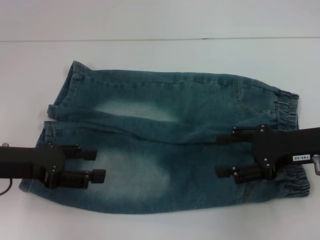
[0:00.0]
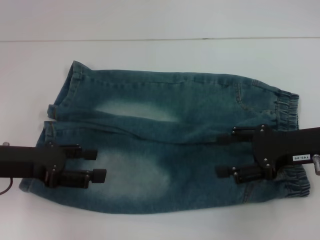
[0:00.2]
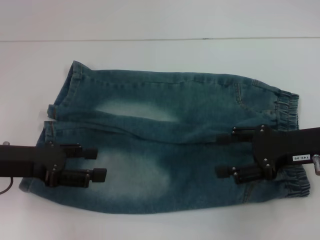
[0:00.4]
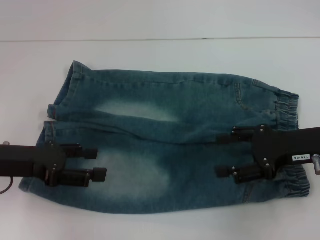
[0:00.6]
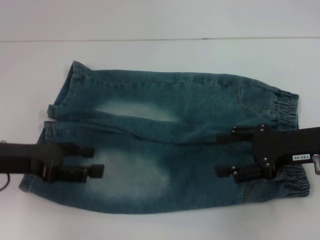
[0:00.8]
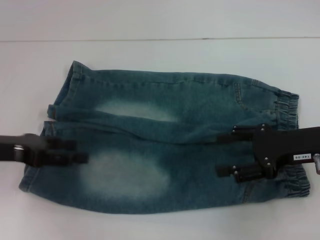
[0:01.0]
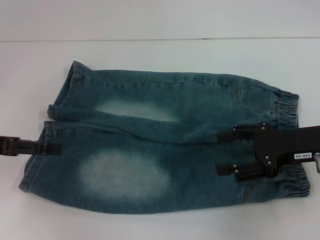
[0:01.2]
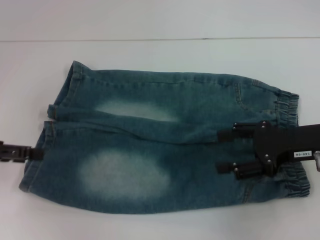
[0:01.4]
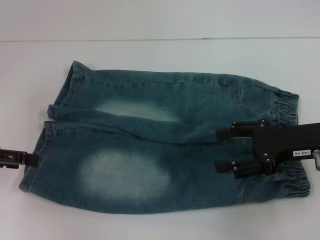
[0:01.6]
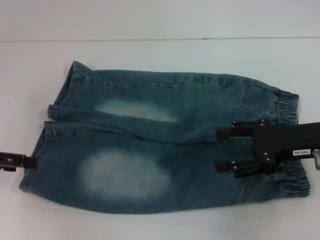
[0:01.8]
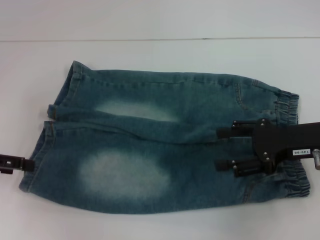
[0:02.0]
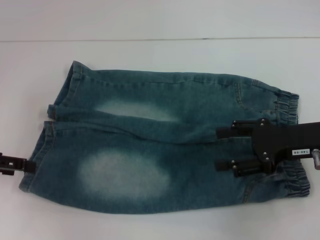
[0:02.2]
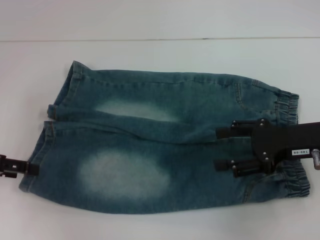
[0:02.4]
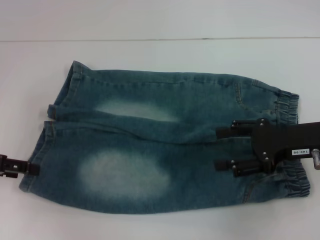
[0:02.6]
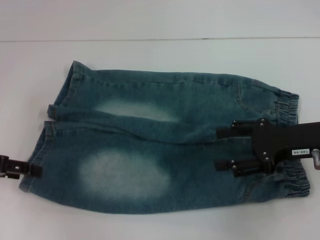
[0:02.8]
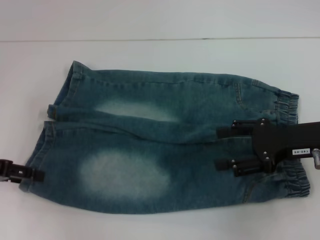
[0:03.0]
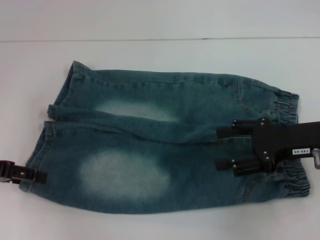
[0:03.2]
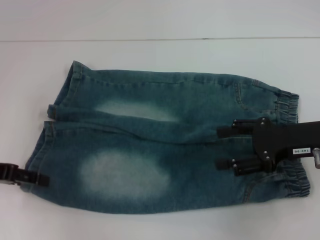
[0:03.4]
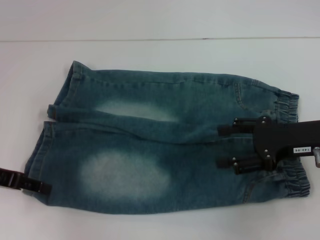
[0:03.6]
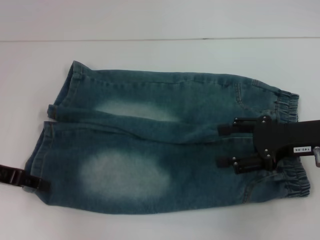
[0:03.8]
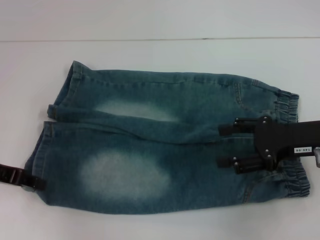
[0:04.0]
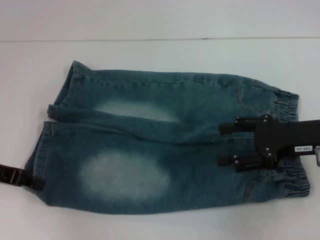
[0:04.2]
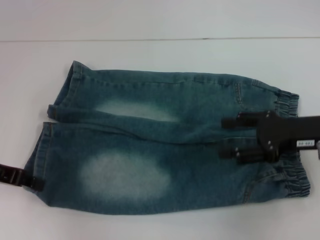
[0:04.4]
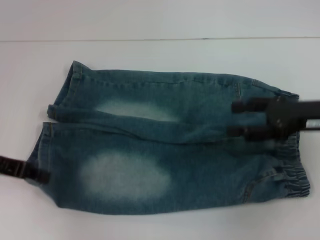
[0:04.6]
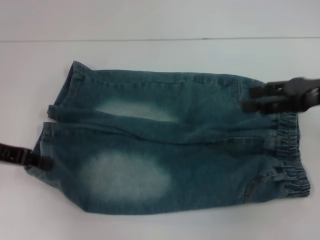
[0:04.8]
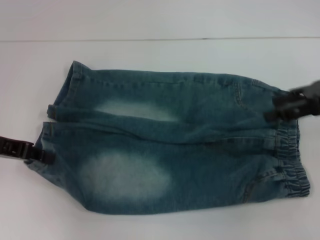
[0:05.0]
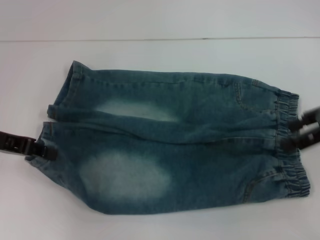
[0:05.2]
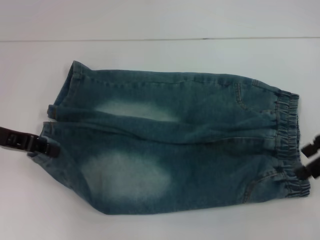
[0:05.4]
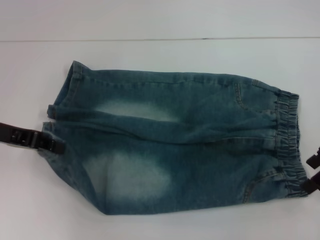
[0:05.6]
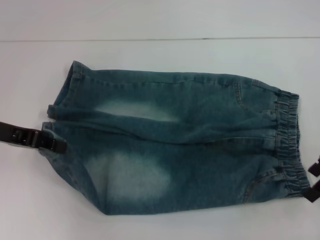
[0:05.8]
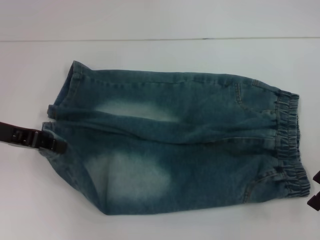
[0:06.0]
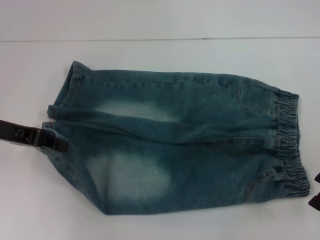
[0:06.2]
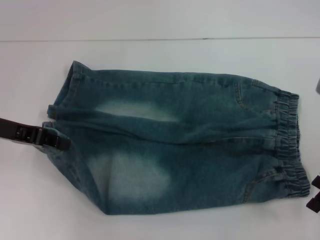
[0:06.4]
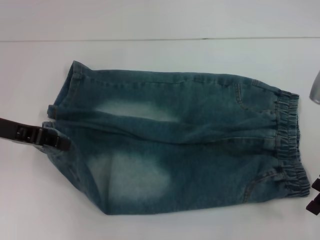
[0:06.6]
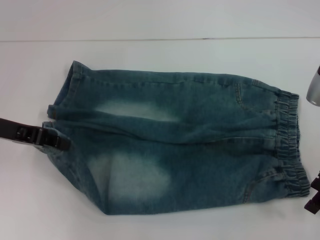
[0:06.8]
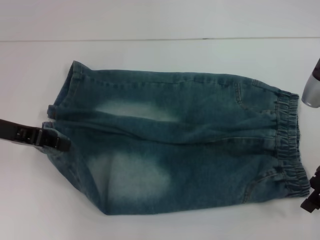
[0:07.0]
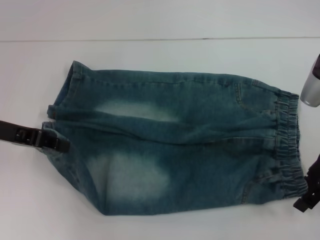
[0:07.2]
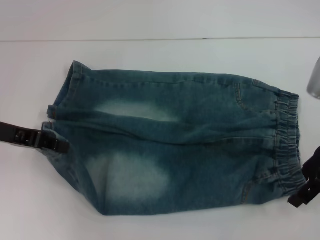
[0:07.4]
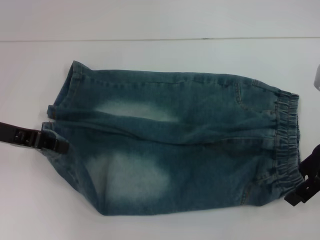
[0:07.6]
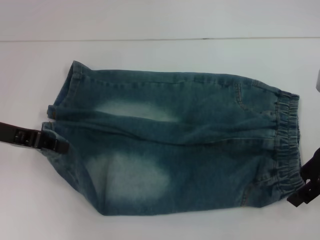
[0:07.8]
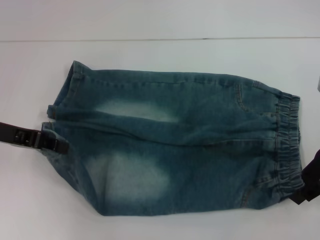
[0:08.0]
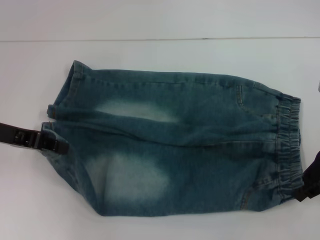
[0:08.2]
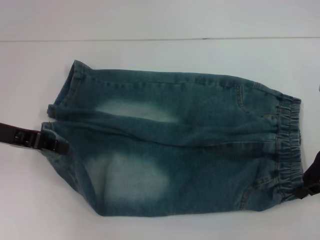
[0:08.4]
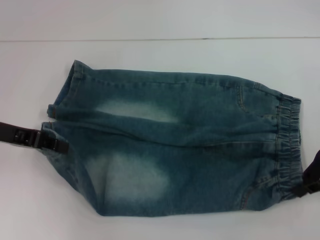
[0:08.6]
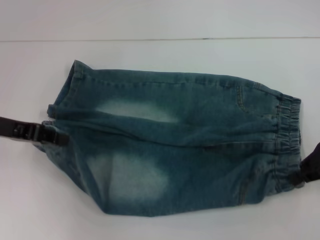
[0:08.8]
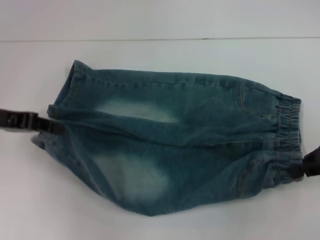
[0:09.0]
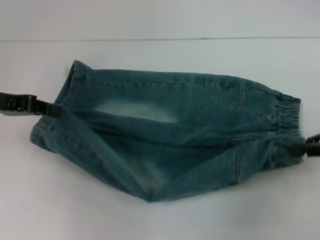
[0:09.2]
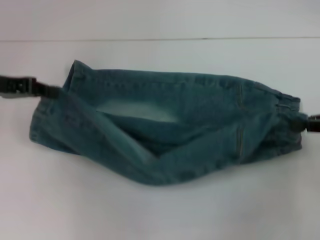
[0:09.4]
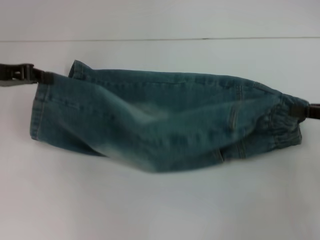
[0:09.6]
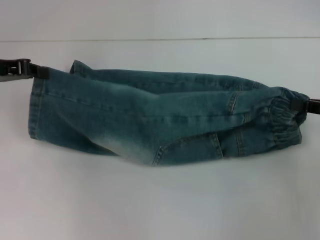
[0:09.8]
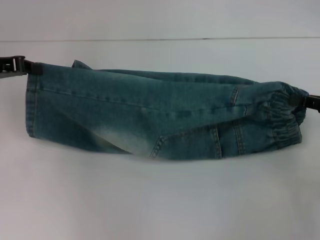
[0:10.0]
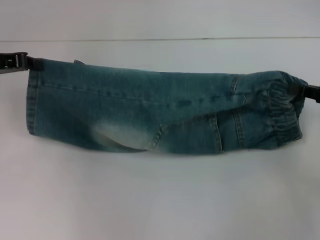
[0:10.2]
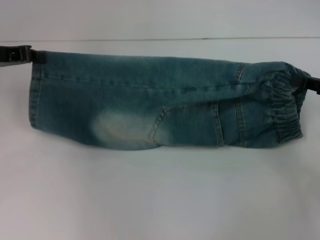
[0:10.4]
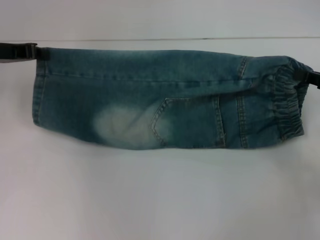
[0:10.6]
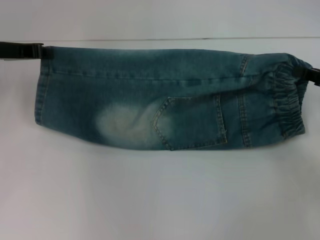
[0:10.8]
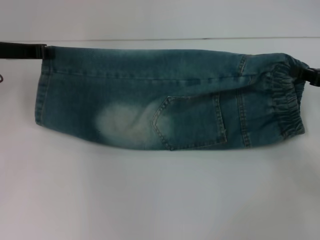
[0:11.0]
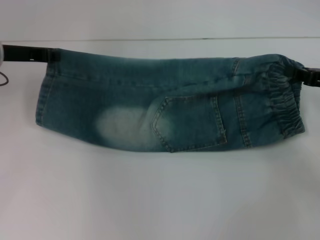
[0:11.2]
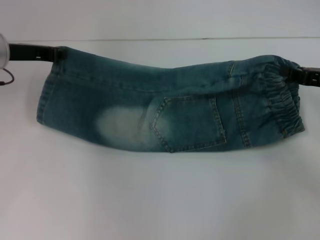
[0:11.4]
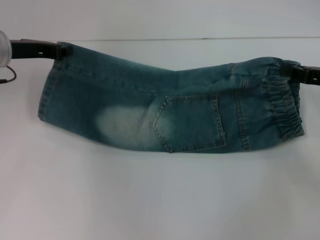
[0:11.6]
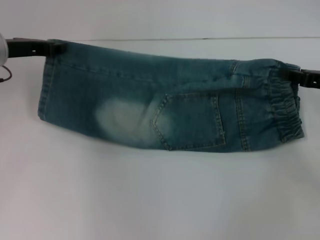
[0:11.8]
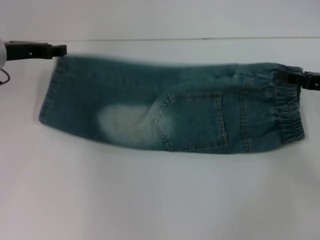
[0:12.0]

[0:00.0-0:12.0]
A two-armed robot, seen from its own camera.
Step, 0:00.0 to 0:04.2: Grab the lower left pant leg with your left hand.
Step, 0:04.6 to 0:08.0: Hold the lower right waistband with your right hand.
0:00.0 to 0:01.6: The left gripper is displaced to the left by about 5 cm.
0:01.6 to 0:03.0: The grippers make only small movements.
0:03.0 to 0:04.4: The left gripper closes its fingers.
0:04.4 to 0:06.0: The right gripper travels upward by roughly 5 cm.
0:06.0 to 0:07.6: The grippers make only small movements.
0:07.6 to 0:09.0: The right gripper ends up about 5 cm from where it was, and closes its fingers.
0:09.0 to 0:10.4: The left gripper goes some 5 cm forward.
0:10.4 to 0:12.0: The left gripper changes place by approximately 5 cm; the right gripper opens.

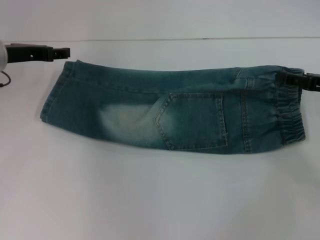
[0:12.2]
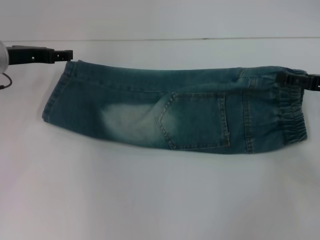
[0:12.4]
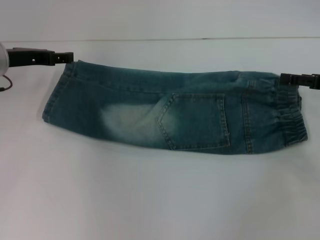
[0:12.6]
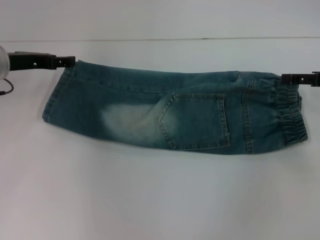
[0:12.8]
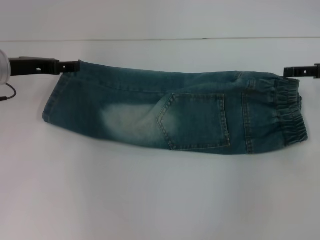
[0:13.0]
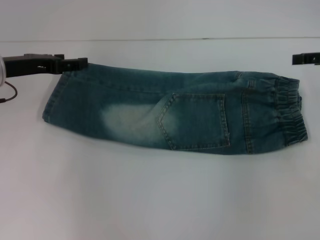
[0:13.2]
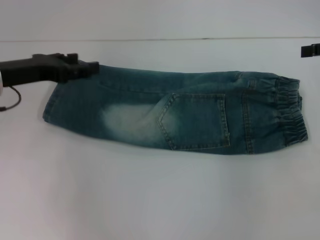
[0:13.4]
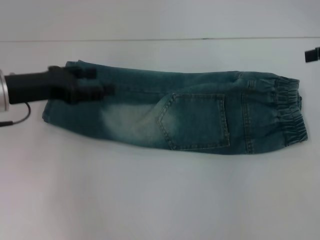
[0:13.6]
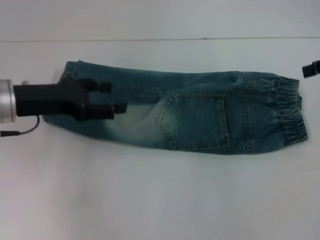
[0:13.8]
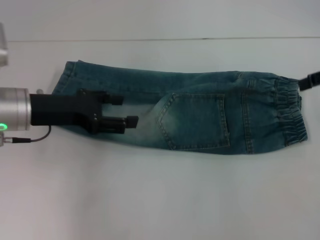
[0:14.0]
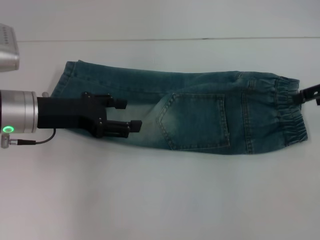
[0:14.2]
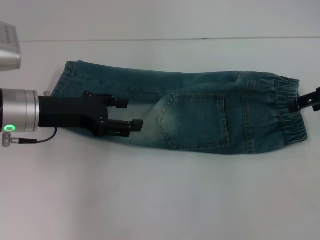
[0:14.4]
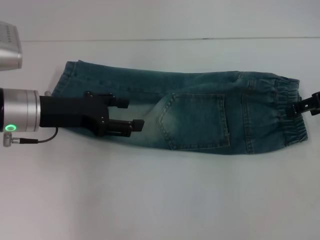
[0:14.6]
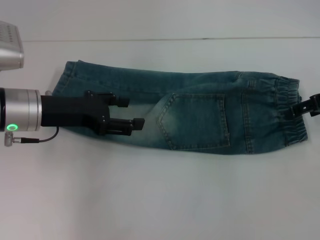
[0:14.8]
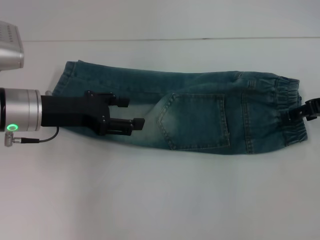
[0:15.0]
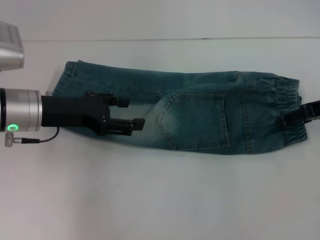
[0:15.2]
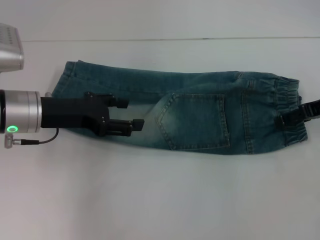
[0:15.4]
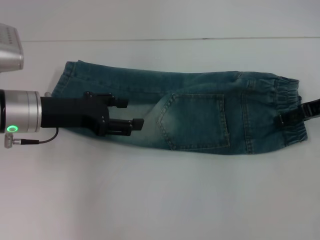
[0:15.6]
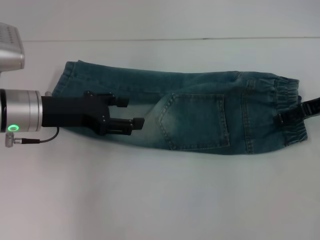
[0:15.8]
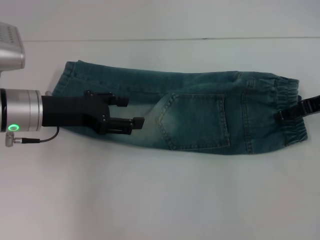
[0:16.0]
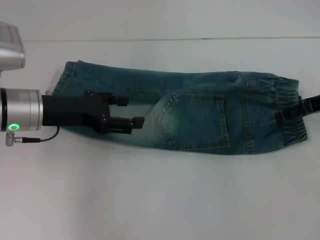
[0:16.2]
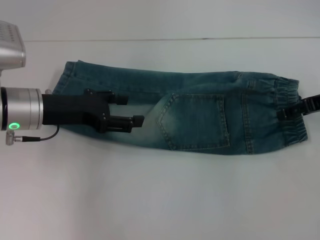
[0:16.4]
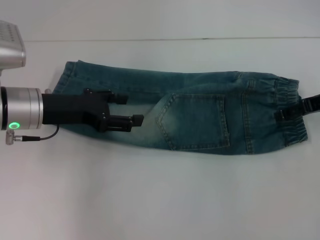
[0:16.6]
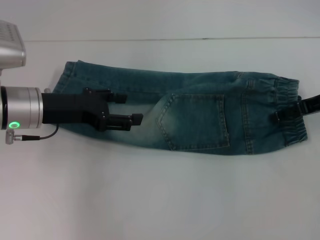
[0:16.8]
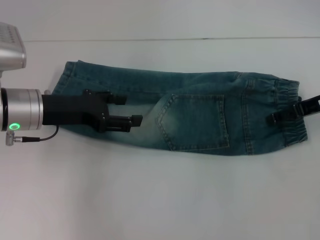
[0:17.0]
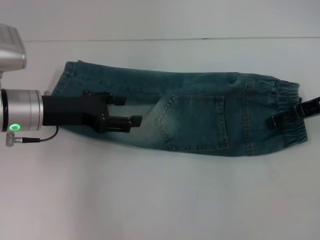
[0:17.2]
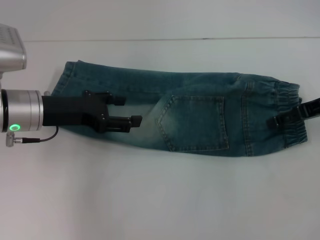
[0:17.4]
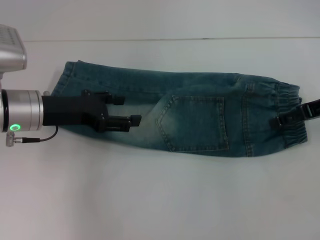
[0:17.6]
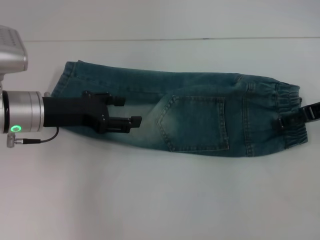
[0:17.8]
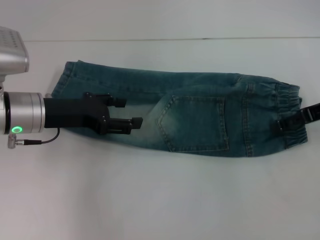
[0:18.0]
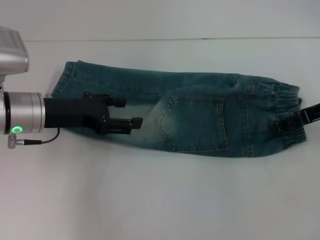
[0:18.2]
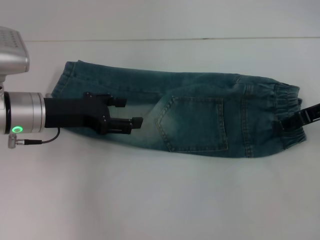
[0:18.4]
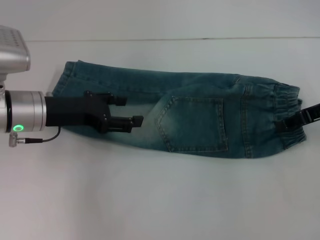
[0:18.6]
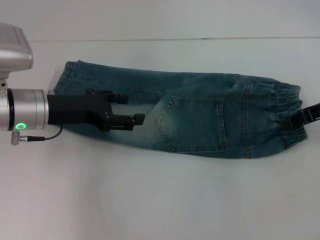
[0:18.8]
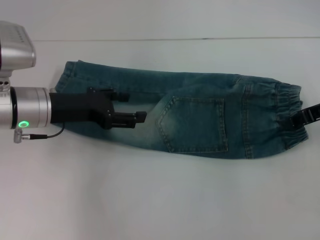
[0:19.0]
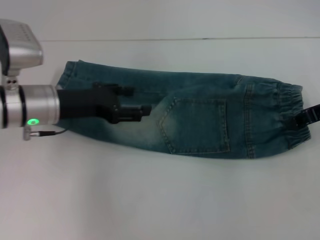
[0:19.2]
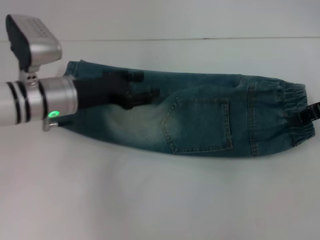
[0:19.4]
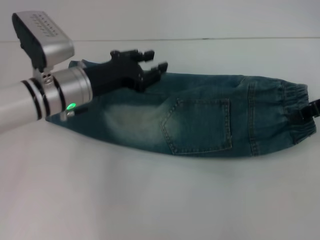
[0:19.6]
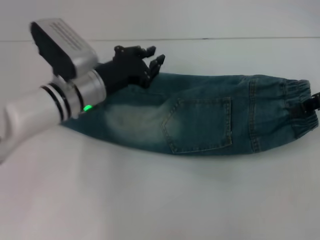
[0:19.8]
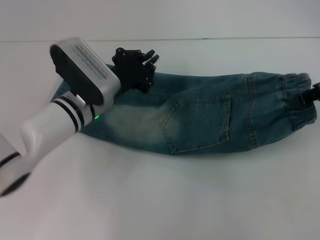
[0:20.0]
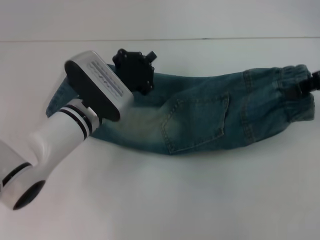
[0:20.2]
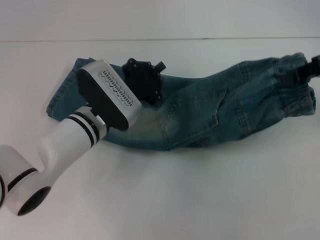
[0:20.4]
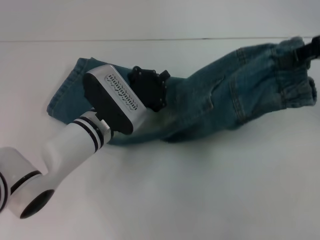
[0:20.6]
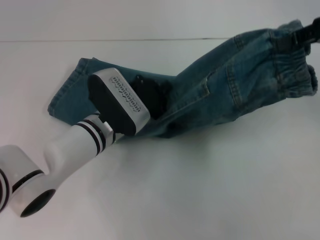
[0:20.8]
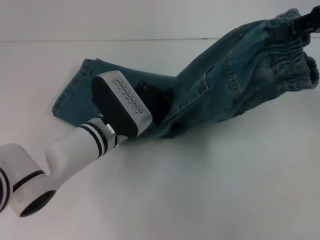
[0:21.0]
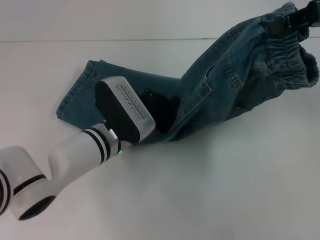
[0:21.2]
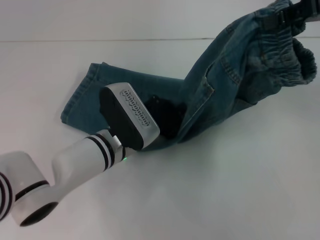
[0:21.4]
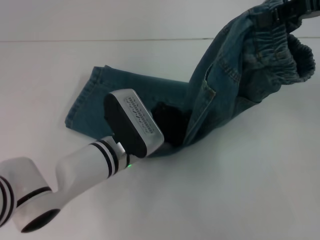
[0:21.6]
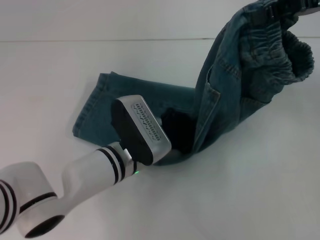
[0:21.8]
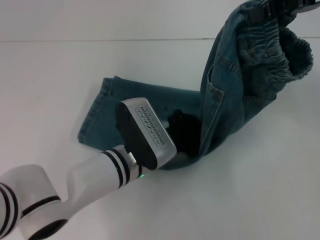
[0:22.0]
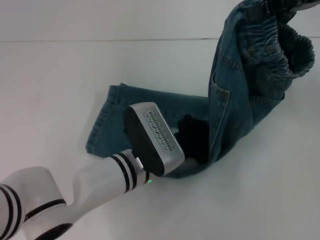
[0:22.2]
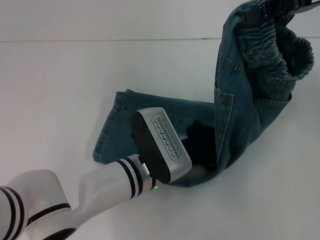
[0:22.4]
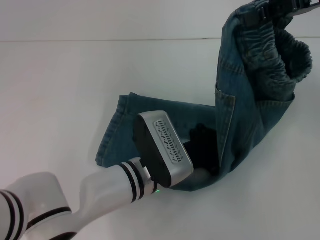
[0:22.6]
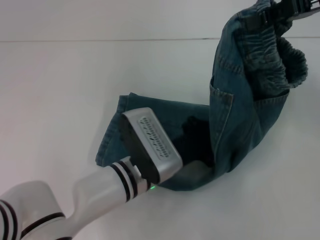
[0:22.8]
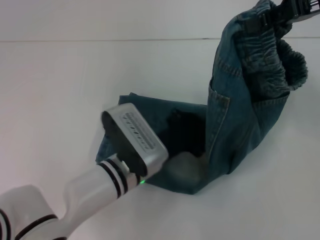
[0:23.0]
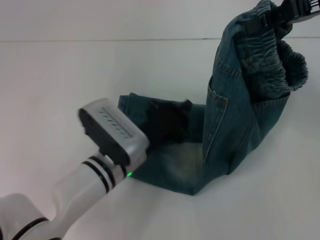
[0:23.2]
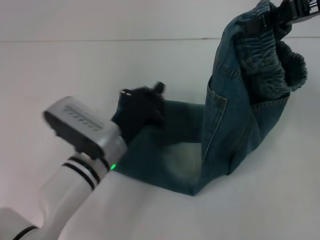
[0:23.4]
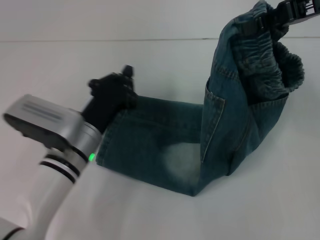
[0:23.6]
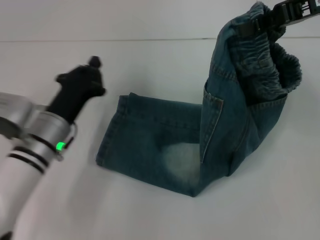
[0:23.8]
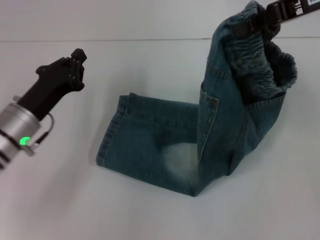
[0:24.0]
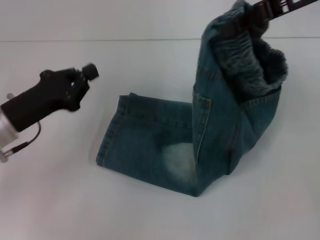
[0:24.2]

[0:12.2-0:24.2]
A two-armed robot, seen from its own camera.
Step, 0:13.0 to 0:18.0: Grab the waistband with your right hand.
Step, 0:18.2 to 0:23.0: Press the middle of the pants with your left hand.
0:12.2 to 0:13.8: The left gripper moves backward, some 10 cm, and opens its fingers. The right gripper is displaced upward by approximately 15 cm, and opens its fingers.
0:13.8 to 0:15.2: The right gripper goes about 10 cm downward.
0:15.2 to 0:16.6: Neither gripper changes place.
0:16.6 to 0:18.2: The grippers make only small movements.
0:18.2 to 0:19.8: The left gripper shifts some 10 cm to the right, and closes up, while the right gripper closes.
0:19.8 to 0:21.2: The left gripper heads downward and to the right, covering about 5 cm, and closes up. Meanwhile the right gripper shifts roughly 10 cm upward.
0:21.2 to 0:22.6: The left gripper goes roughly 10 cm backward and to the right.
0:22.6 to 0:24.2: The left gripper is displaced to the left by some 20 cm.
